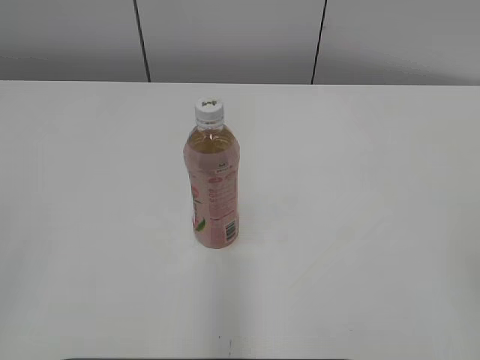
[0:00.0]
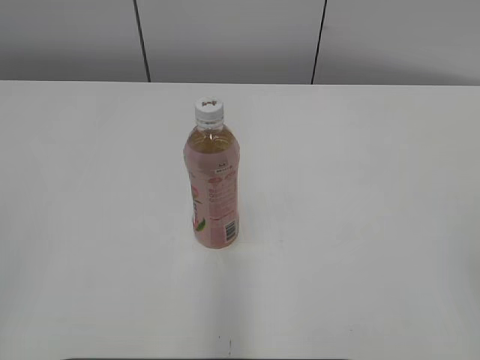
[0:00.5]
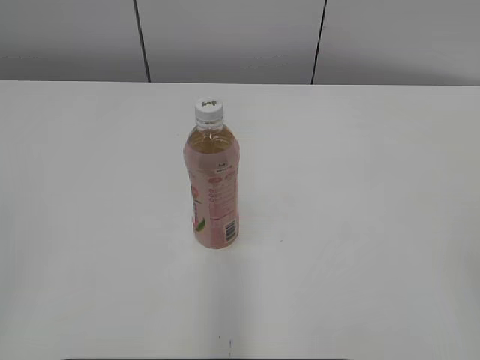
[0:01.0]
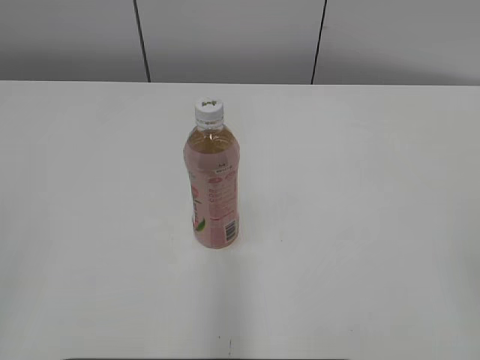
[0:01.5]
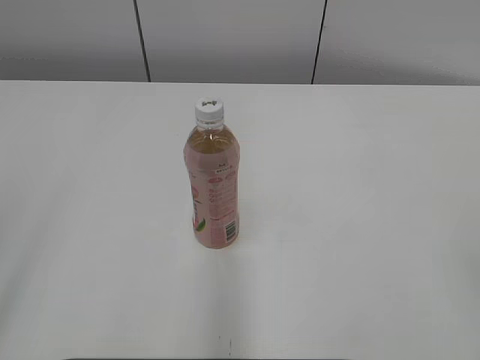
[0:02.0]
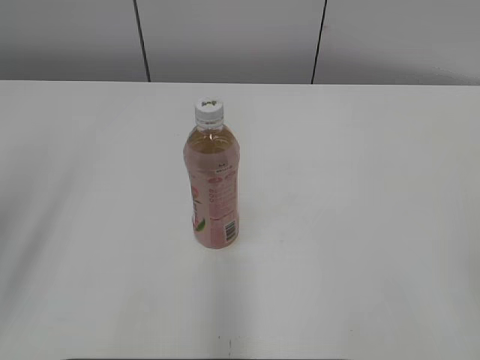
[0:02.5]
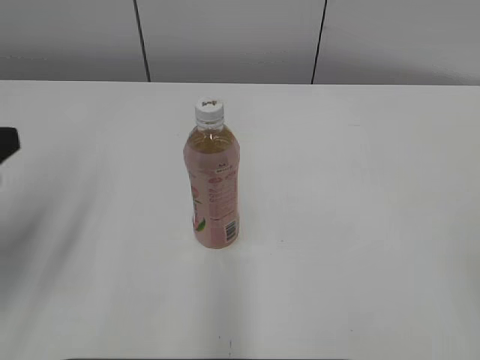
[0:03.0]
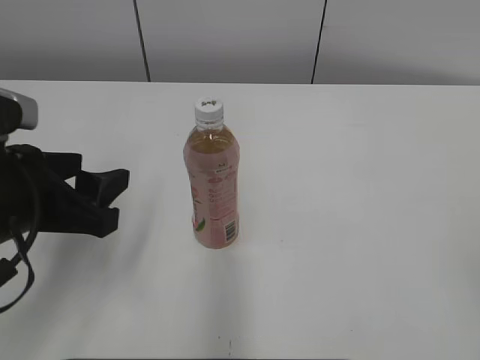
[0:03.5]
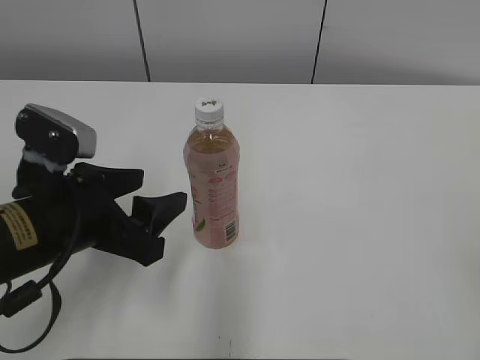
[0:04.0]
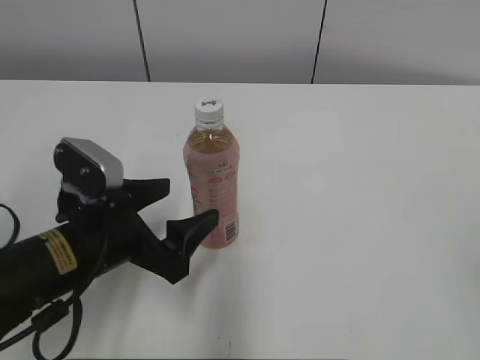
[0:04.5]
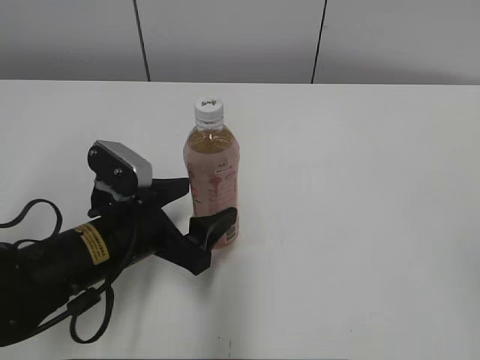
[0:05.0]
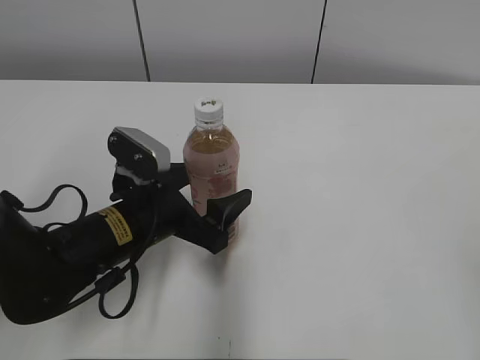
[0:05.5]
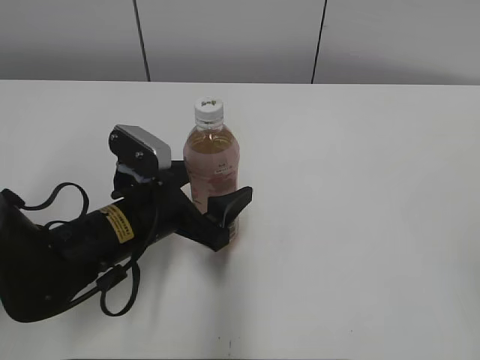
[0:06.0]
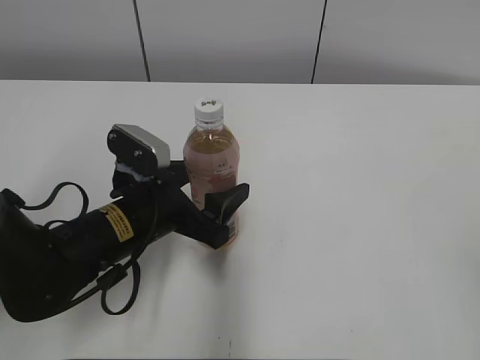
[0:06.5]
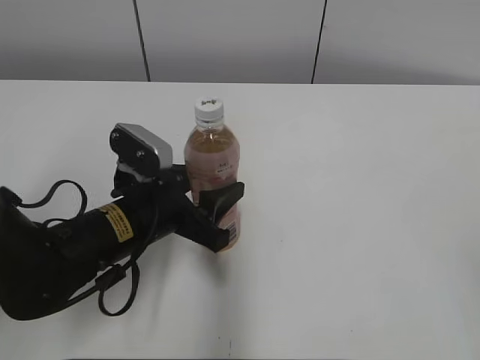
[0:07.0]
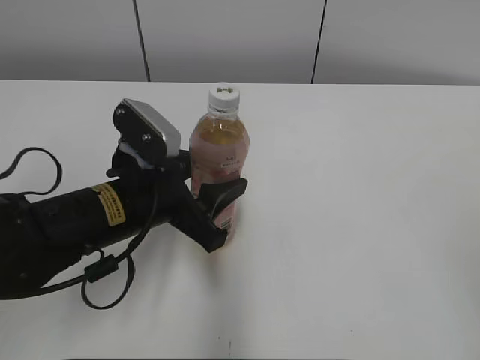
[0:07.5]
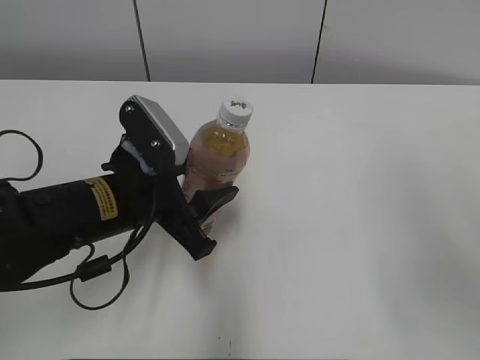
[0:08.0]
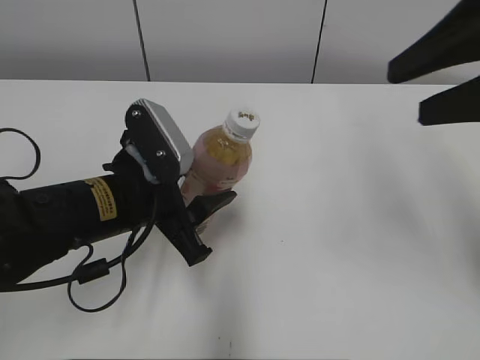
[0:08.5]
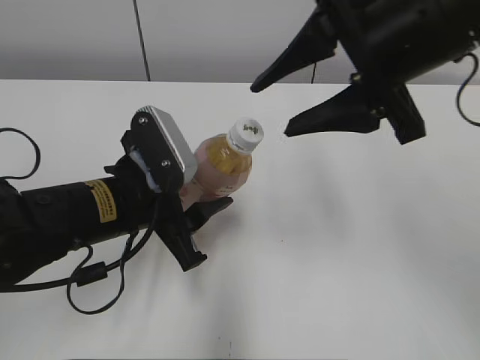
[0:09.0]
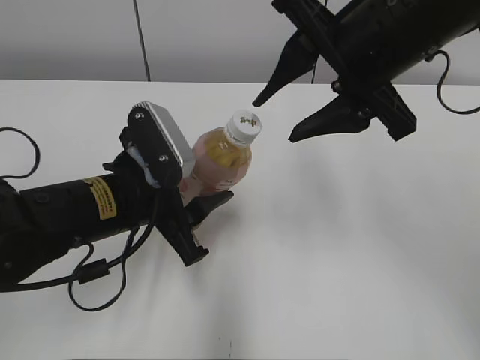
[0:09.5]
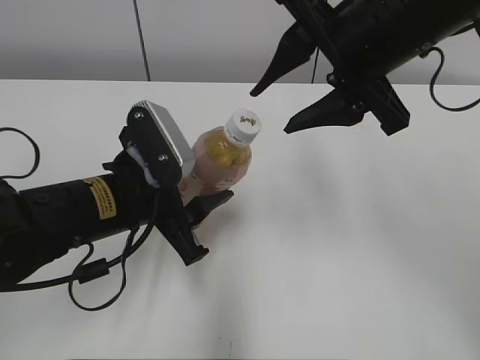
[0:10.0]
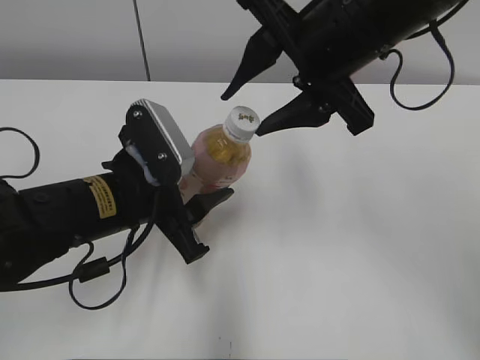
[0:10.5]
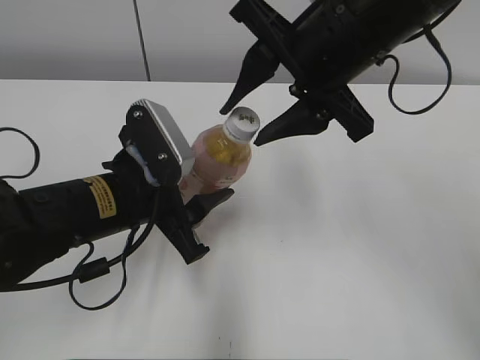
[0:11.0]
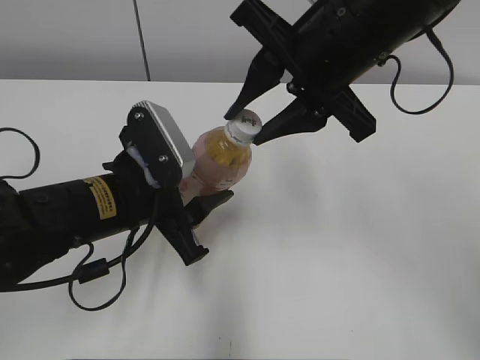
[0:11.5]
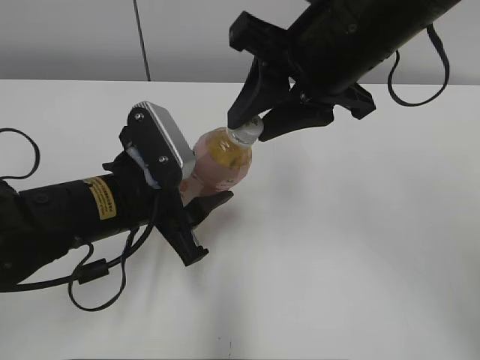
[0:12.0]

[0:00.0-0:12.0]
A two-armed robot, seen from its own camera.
Step, 0.0 to 6.5 s: Grab the Peach Oolong Tea with the left hand.
2.0 to 4.0 s: The left gripper is displaced forward, downward and to the right by some 30 cm.
4.0 to 6.0 s: The left gripper goes about 10 cm downward, forward and to the right, and opens.
6.0 to 8.0 s: The right gripper shifts about 10 cm forward; the left gripper closes its fingers.
8.0 to 10.0 s: The right gripper heads forward and to the left, covering about 20 cm.
10.0 to 12.0 s: The right gripper closes.

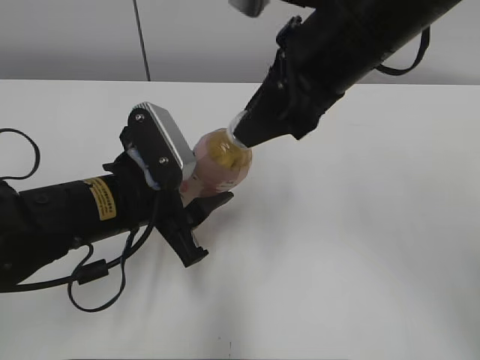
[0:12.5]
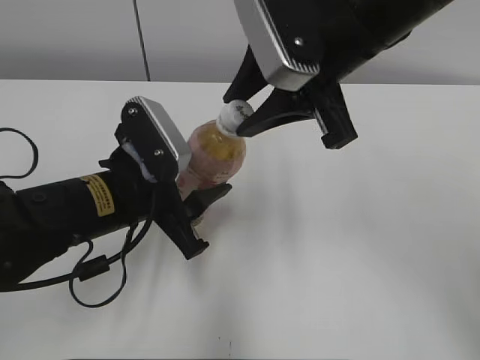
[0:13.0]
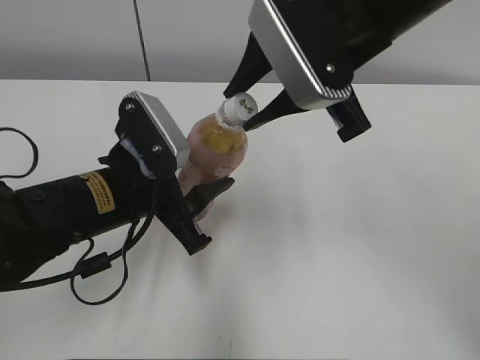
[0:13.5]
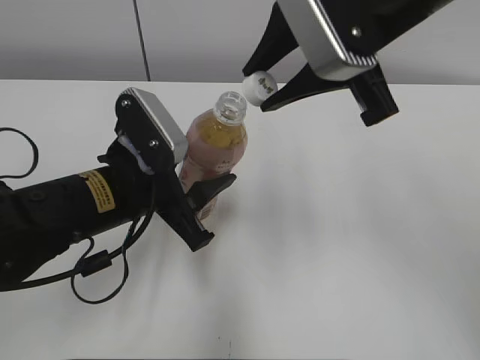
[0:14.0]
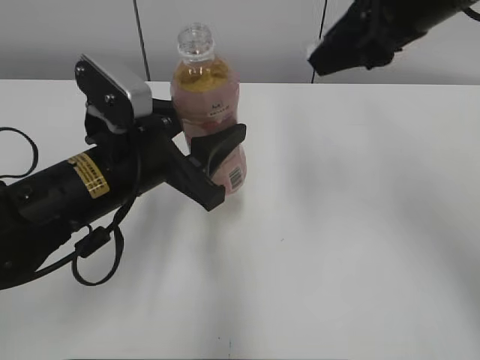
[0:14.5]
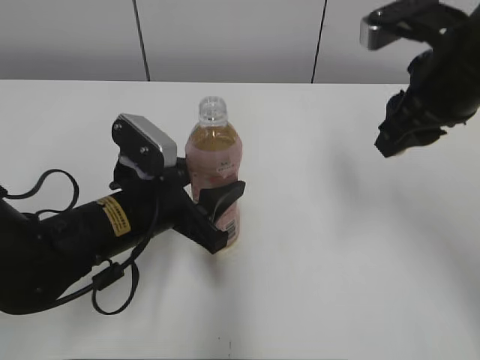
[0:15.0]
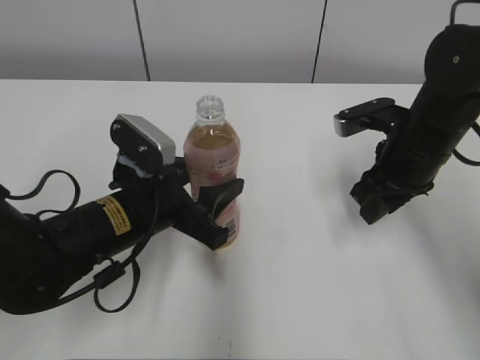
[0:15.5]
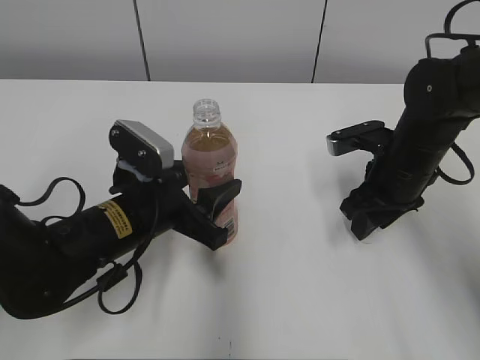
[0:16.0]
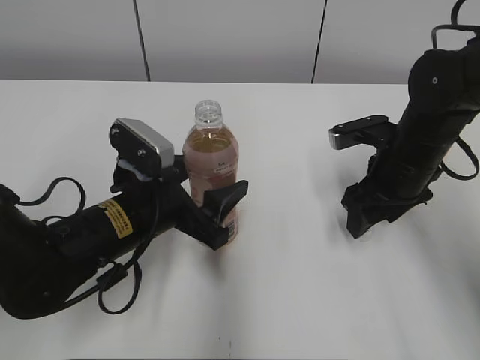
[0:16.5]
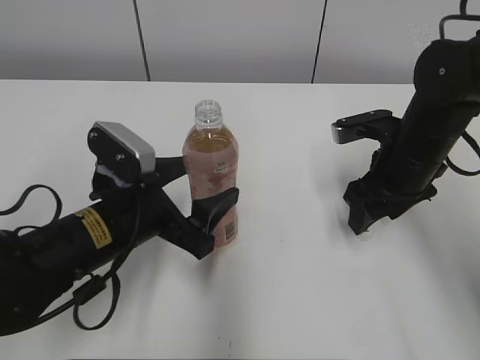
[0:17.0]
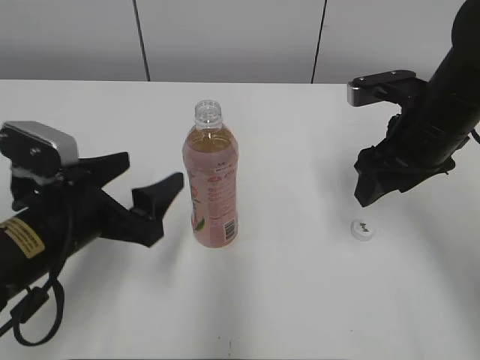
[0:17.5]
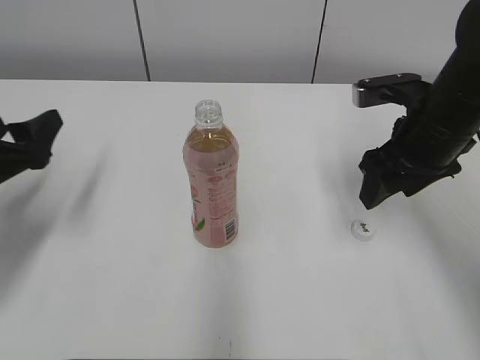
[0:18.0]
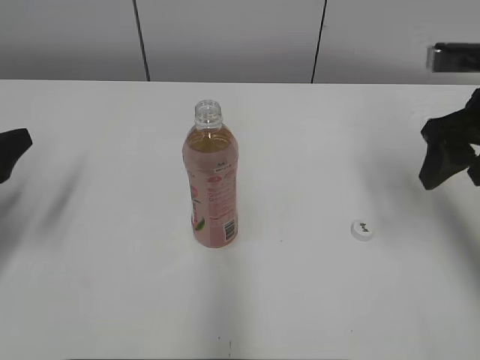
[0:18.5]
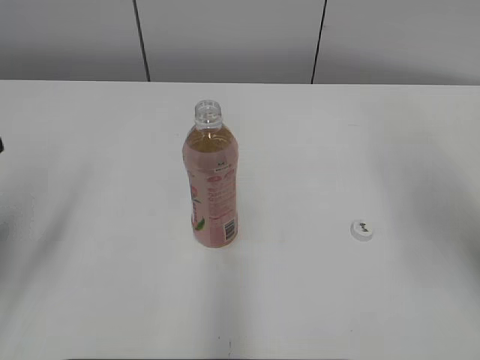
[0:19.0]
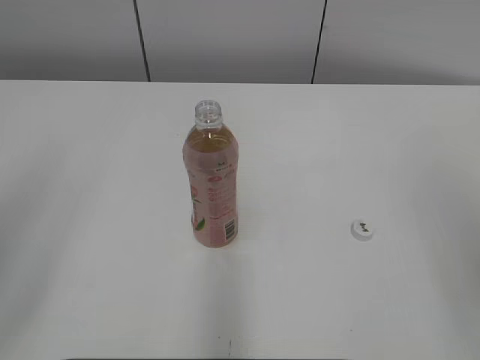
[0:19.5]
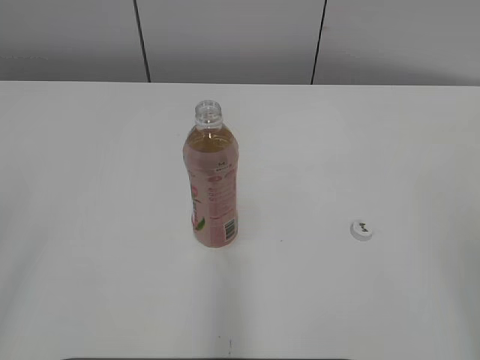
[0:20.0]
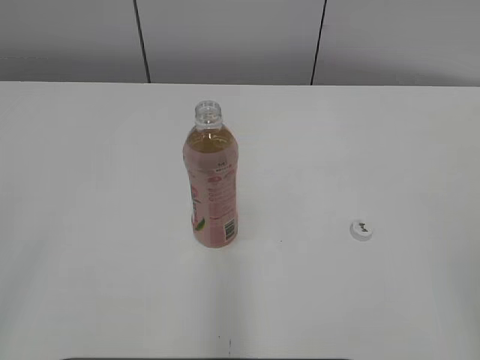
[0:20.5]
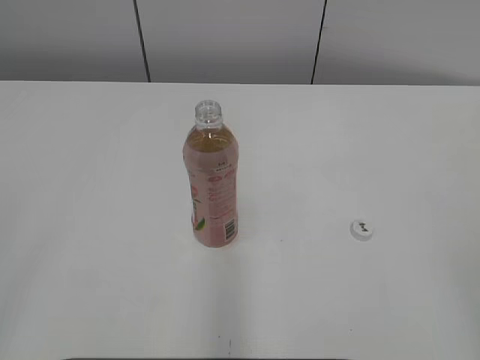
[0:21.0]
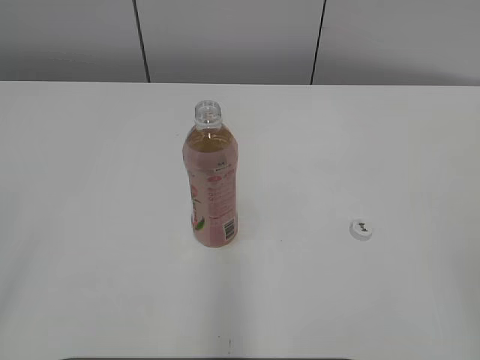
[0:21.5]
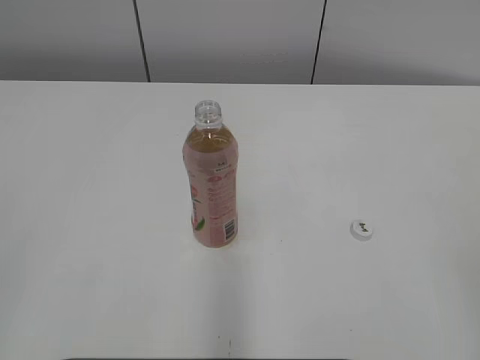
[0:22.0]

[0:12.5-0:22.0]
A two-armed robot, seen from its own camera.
Step, 14.0 to 16.0 s: Place the bottle cap on the right.
12.5 to 14.5 s: The right gripper heads to the right, covering about 5 cm.
14.5 to 16.5 s: The right gripper shifts about 20 cm downward, and opens. Meanwhile the left gripper is displaced downward by approximately 5 cm, and opens its fingers.
16.5 to 18.0 s: The right gripper moves upward, about 5 cm, while the left gripper travels to the left by about 15 cm, and opens.
18.0 to 20.0 s: The right gripper is displaced backward by roughly 25 cm. The left gripper heads backward and upward, covering about 25 cm.

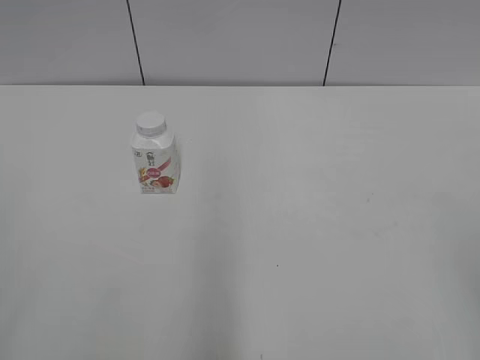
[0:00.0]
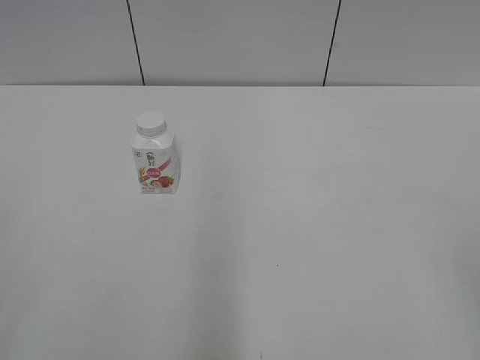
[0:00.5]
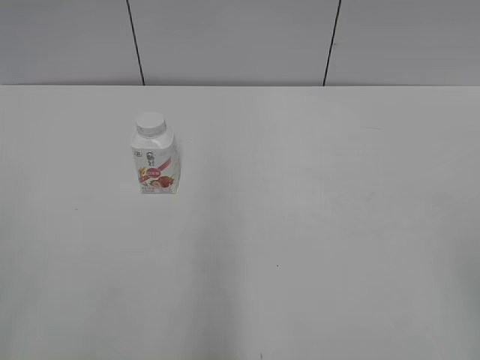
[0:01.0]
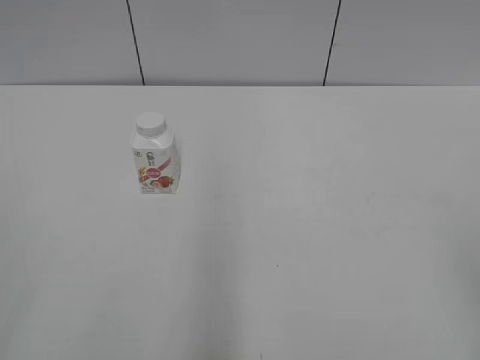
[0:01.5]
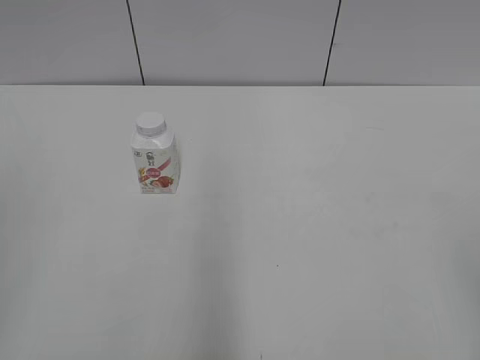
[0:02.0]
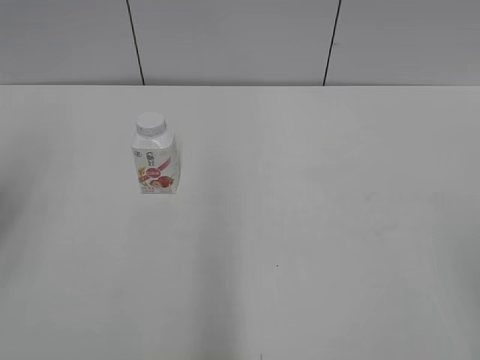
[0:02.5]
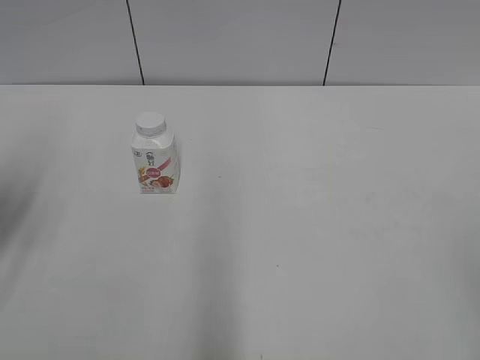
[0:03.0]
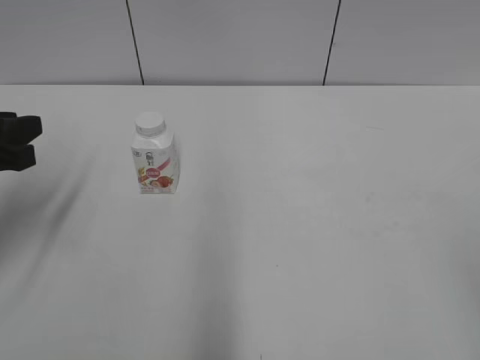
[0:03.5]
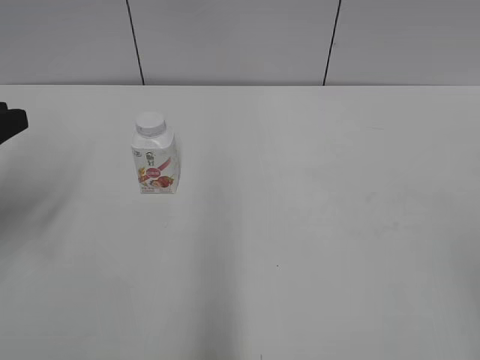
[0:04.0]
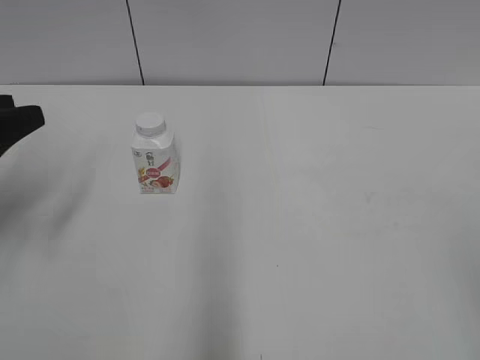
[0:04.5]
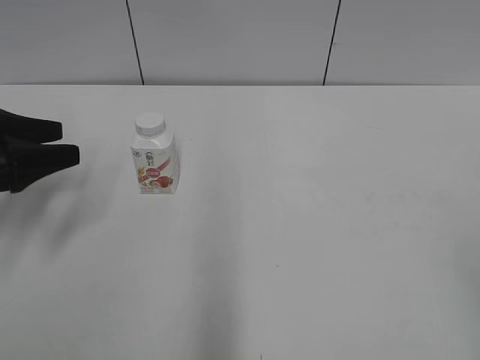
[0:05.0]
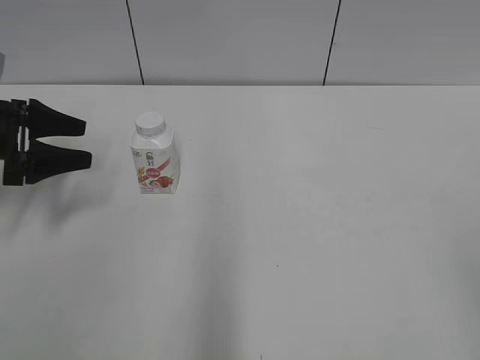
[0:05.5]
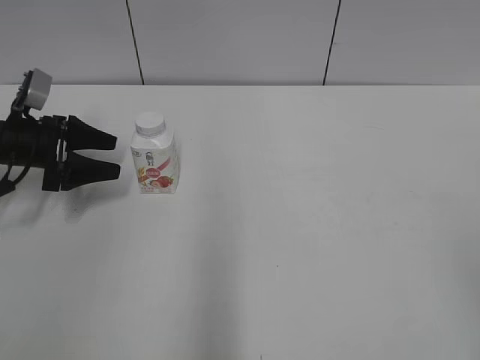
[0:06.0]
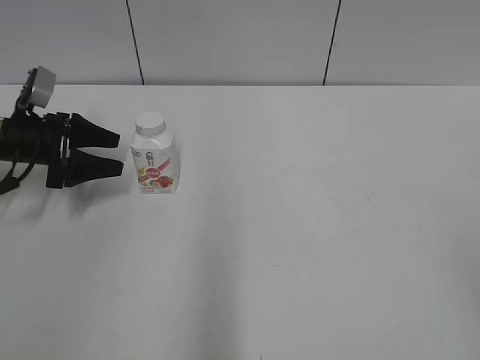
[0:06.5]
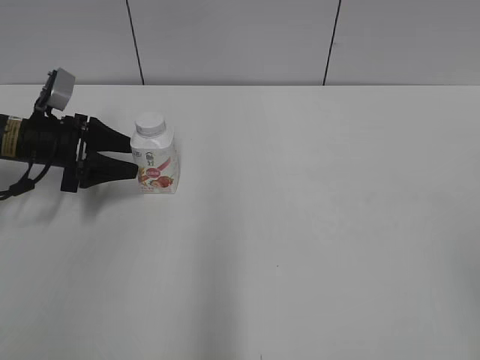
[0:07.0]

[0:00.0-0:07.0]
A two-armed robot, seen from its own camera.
2.0 to 3.5 s: The left gripper moves forward and downward, approximately 25 cm.
3.5 to 5.0 s: The left gripper shifts by roughly 5 cm, and opens.
5.0 to 7.0 s: The left gripper heads forward and downward, covering about 15 cm.
